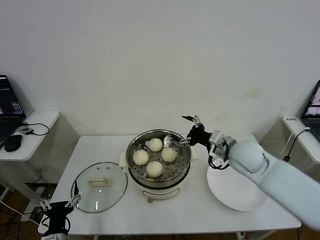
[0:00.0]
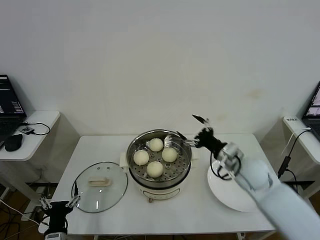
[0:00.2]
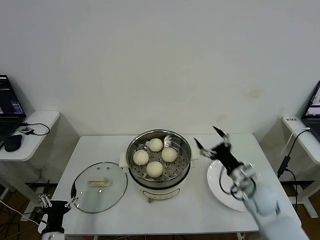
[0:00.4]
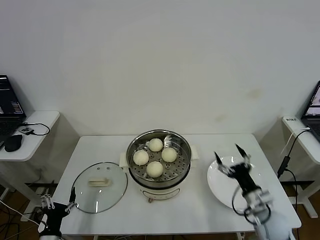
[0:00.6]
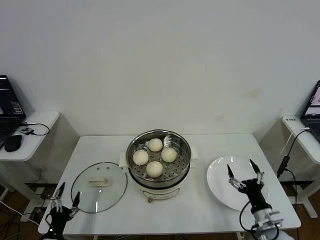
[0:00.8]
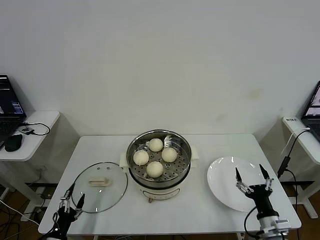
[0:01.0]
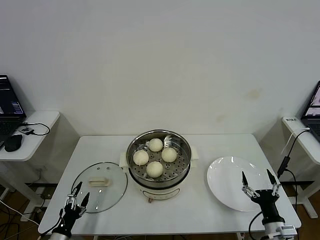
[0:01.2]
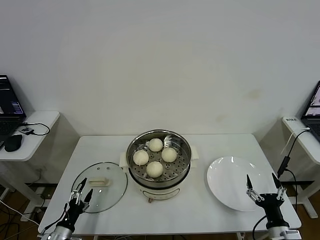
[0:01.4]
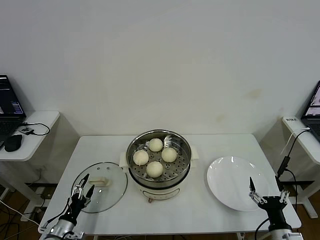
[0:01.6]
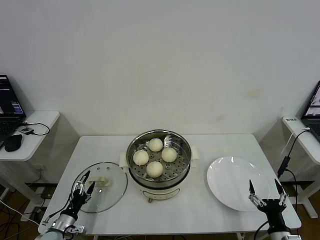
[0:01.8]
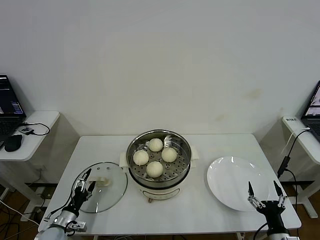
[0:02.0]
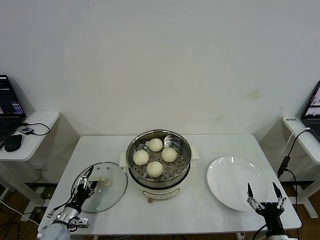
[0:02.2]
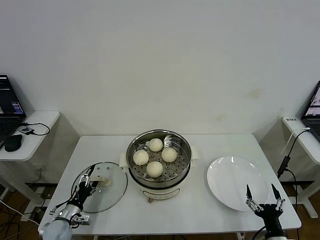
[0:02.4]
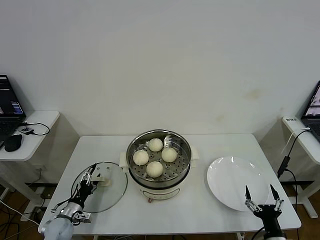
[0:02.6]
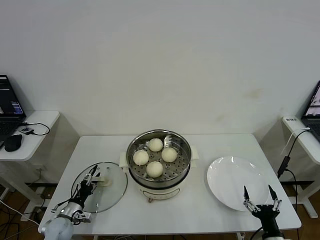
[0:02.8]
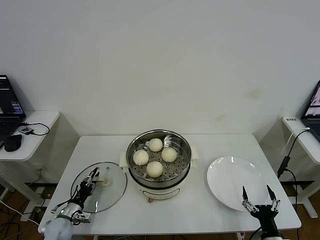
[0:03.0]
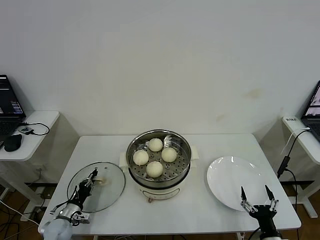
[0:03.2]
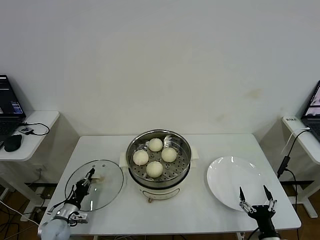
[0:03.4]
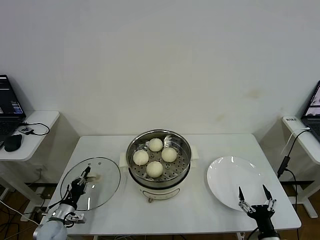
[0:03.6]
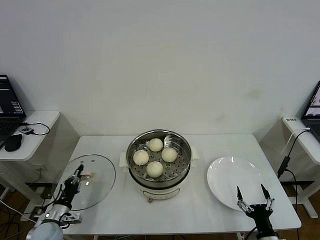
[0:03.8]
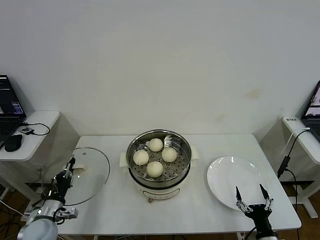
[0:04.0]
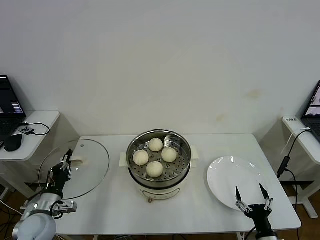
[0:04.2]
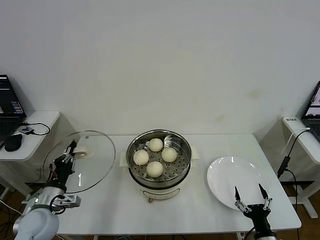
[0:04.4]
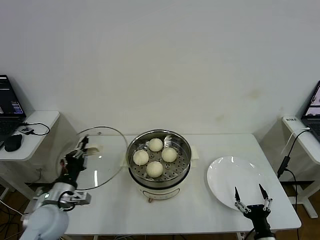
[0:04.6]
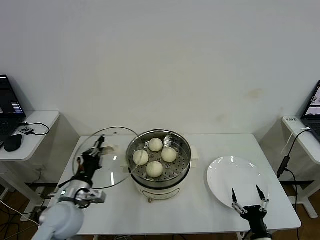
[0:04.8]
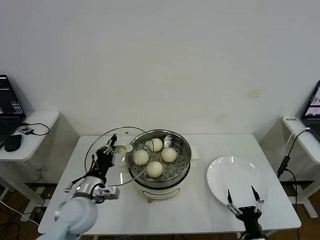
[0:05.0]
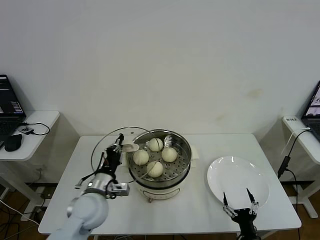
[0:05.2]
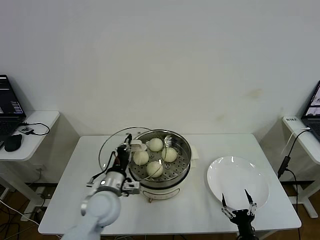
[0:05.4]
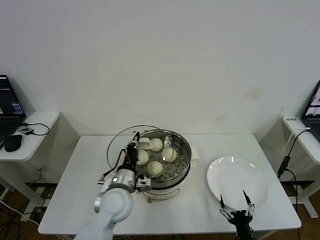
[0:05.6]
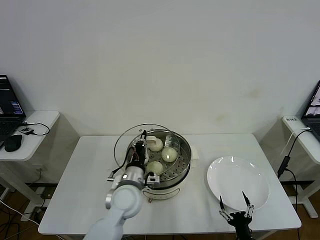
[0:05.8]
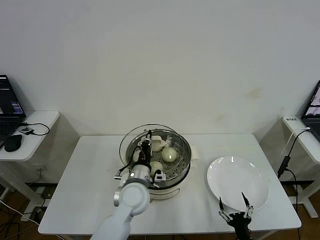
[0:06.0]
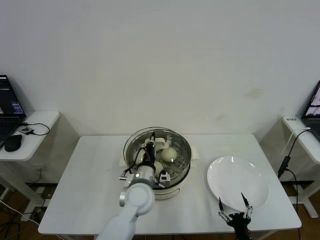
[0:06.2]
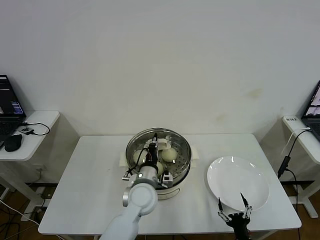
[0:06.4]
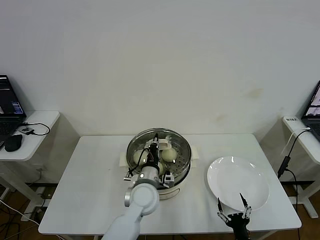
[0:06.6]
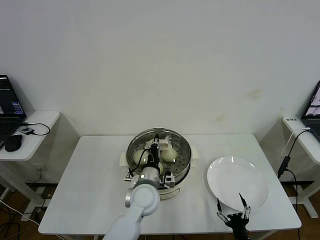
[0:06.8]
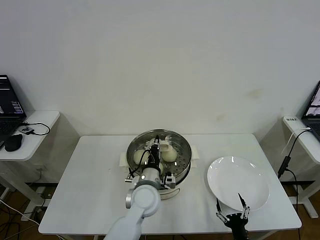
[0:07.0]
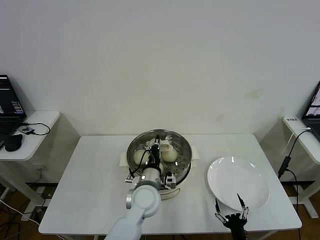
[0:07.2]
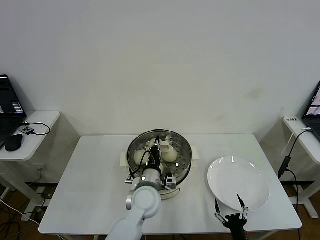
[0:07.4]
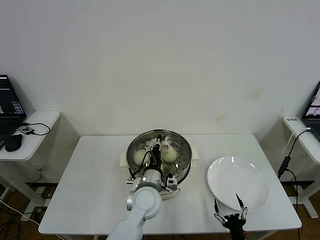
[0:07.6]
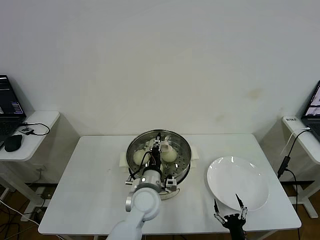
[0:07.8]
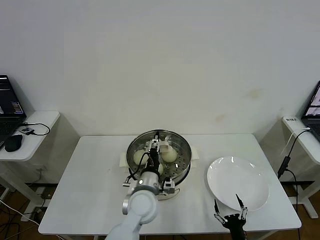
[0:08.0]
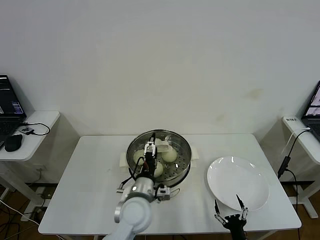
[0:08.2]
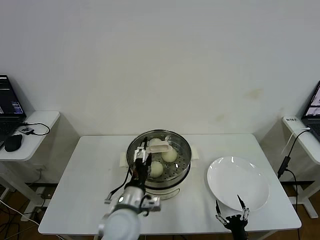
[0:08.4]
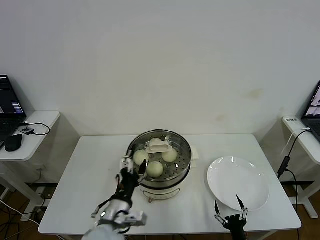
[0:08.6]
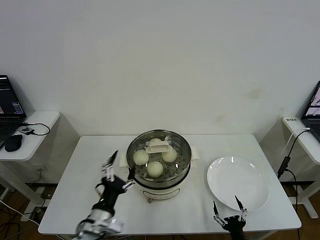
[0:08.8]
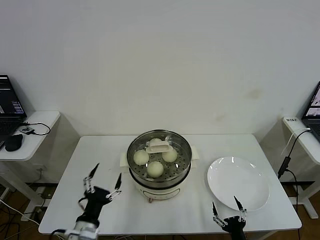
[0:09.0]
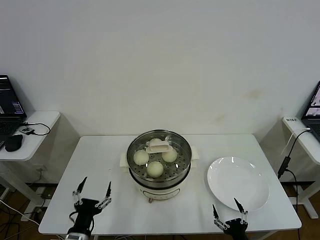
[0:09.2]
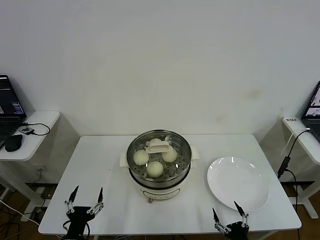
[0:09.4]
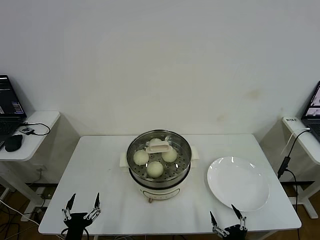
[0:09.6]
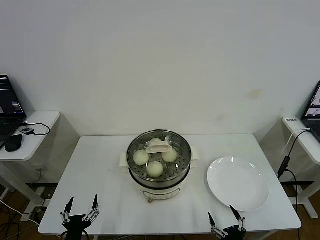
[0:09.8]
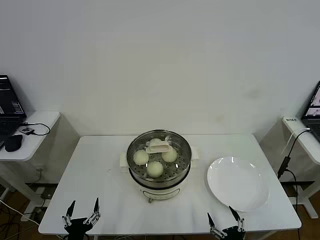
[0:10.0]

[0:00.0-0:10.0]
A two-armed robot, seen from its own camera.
Step, 0:00.0 to 0:03.4: Grasp the pot lid with left gripper.
Step, 0:03.6 to 0:07.8: Place the pot lid on the steamer with left gripper.
0:00.0 to 0:01.4: The left gripper is displaced to the left and downward by about 10 cm. The right gripper shifts roughly 35 cm backward, downward and to the right.
0:01.4 to 0:02.8: The left gripper goes about 10 cm forward.
0:02.8 to 0:04.2: The left gripper goes roughly 15 cm upward, and closes its fingers.
0:04.2 to 0:05.8: The left gripper travels to the right by about 25 cm. The right gripper goes roughly 5 cm to the left.
0:05.8 to 0:07.2: The left gripper heads to the right, covering roughly 5 cm.
0:07.2 to 0:08.6: The left gripper travels backward and to the left by about 15 cm, and opens its fingers.
0:08.6 to 0:10.0: The left gripper travels to the left, downward and backward by approximately 20 cm. The right gripper moves upward, some 5 cm.
